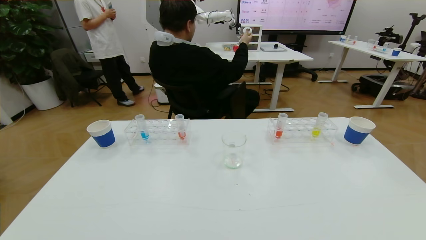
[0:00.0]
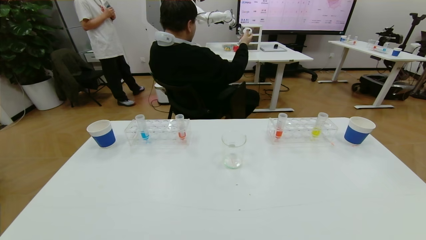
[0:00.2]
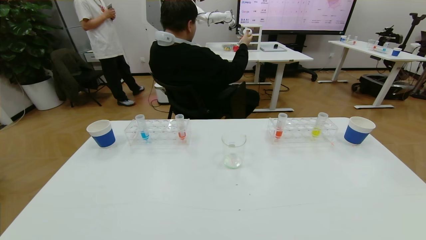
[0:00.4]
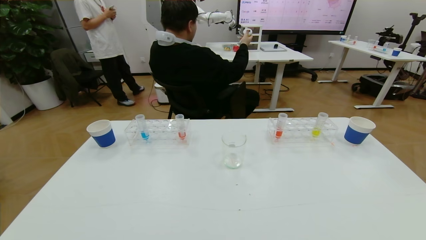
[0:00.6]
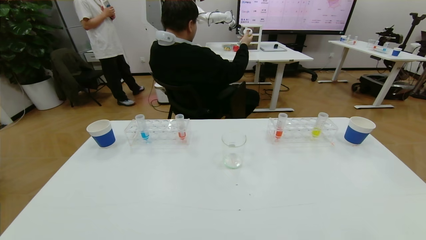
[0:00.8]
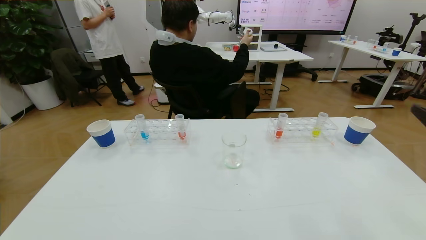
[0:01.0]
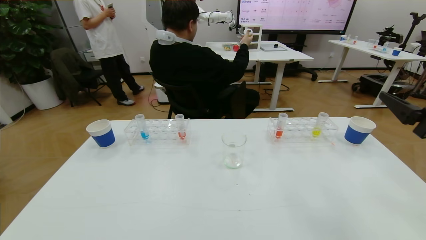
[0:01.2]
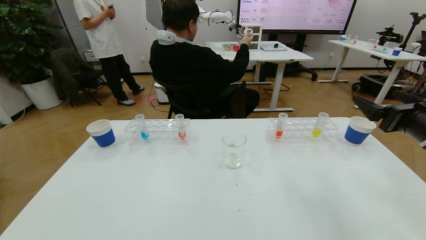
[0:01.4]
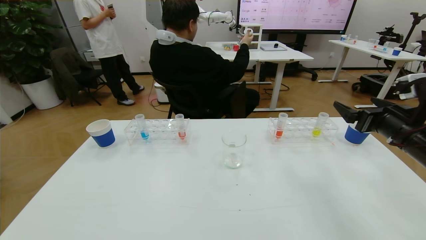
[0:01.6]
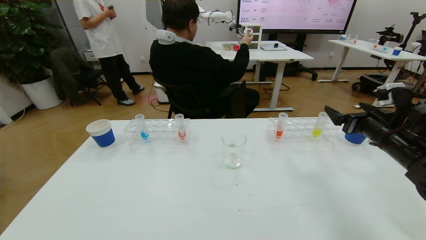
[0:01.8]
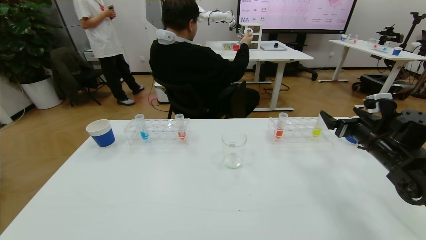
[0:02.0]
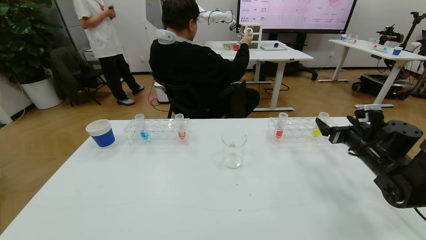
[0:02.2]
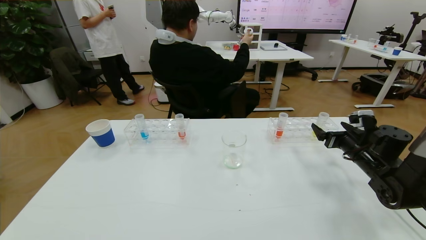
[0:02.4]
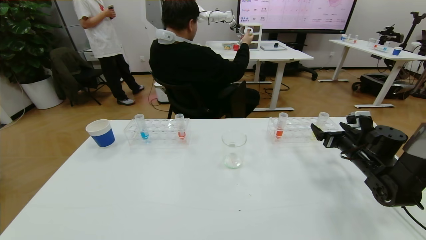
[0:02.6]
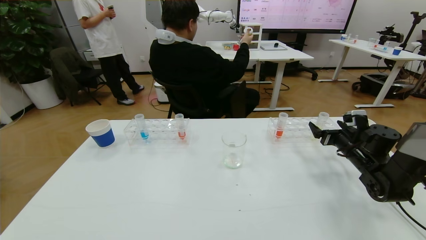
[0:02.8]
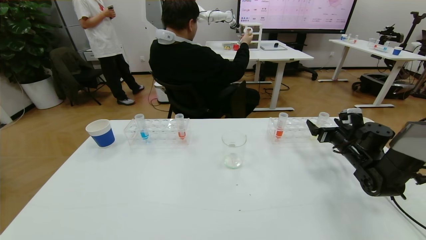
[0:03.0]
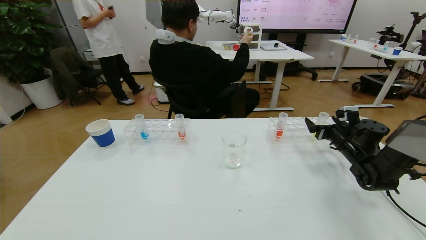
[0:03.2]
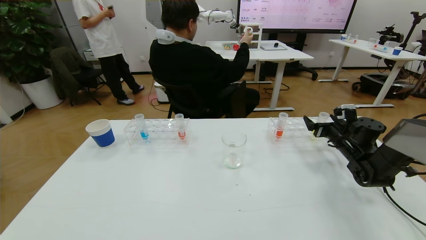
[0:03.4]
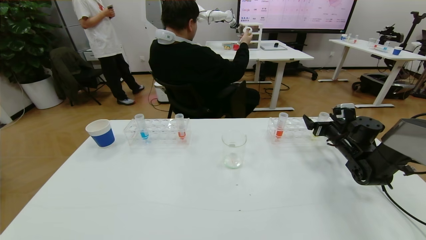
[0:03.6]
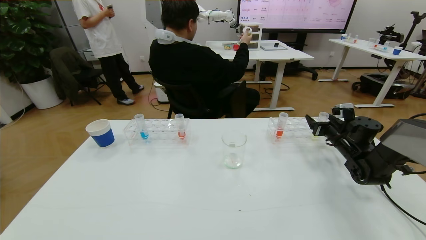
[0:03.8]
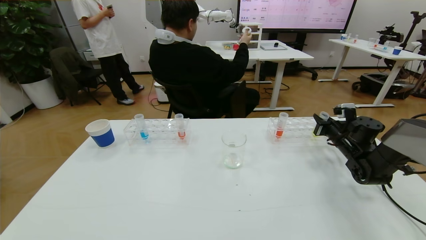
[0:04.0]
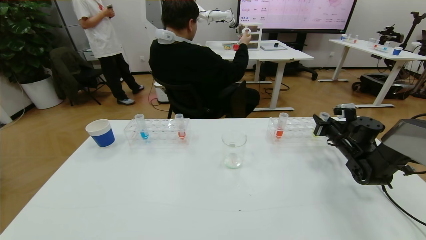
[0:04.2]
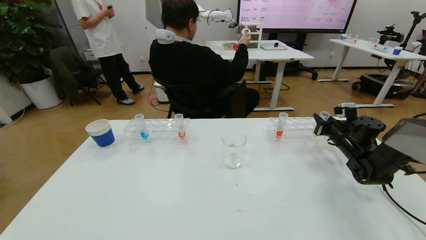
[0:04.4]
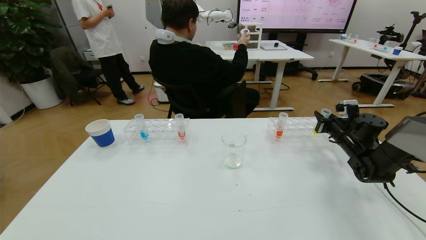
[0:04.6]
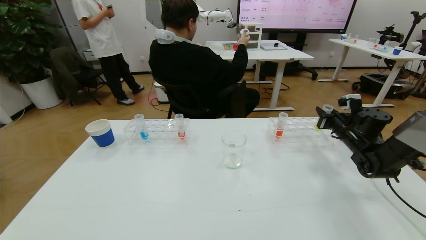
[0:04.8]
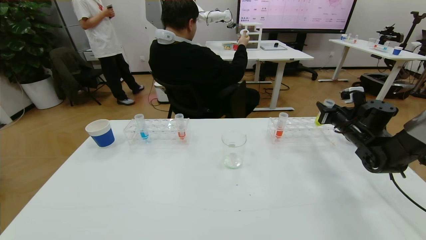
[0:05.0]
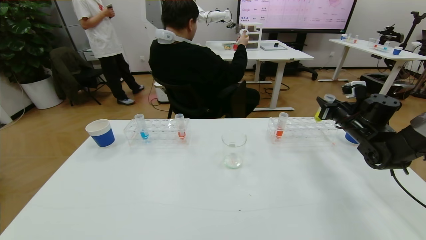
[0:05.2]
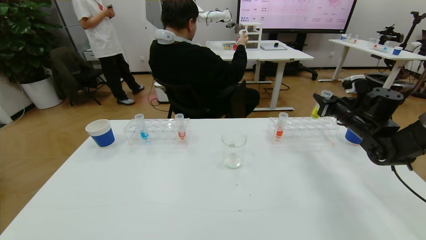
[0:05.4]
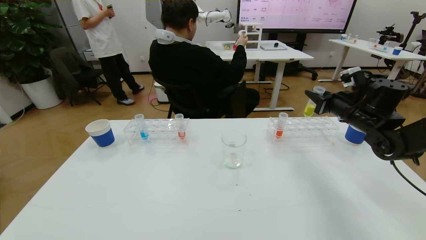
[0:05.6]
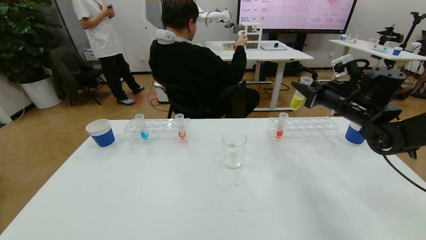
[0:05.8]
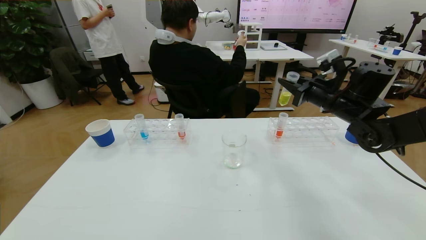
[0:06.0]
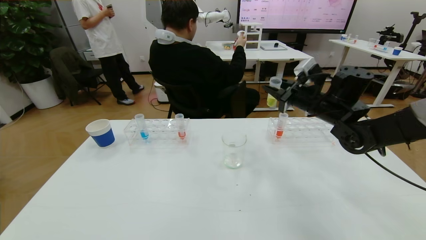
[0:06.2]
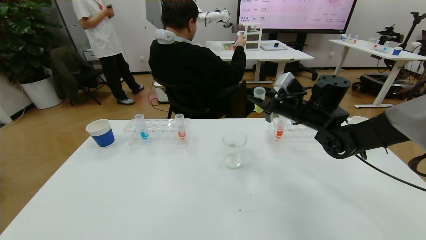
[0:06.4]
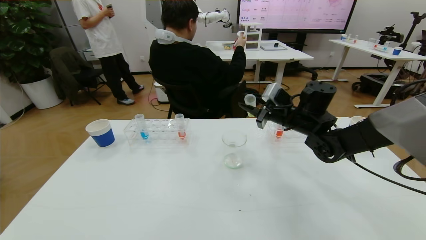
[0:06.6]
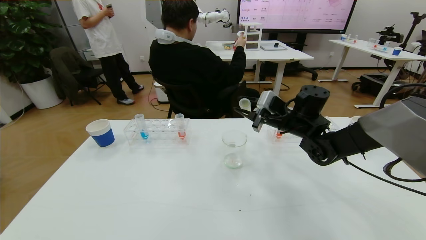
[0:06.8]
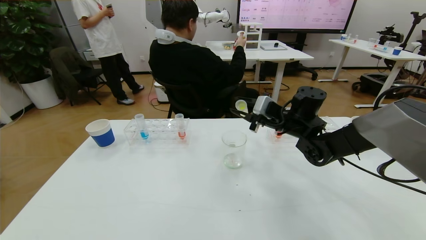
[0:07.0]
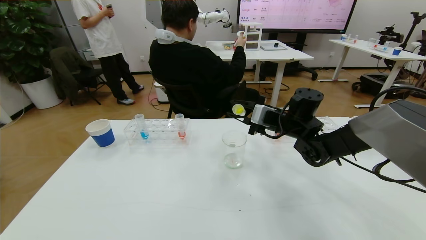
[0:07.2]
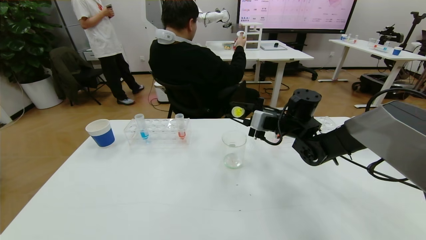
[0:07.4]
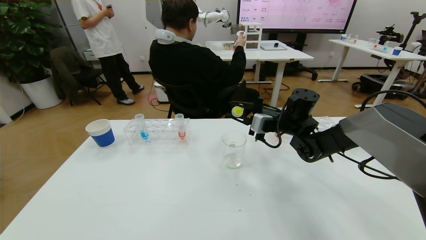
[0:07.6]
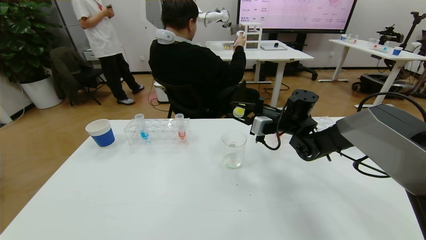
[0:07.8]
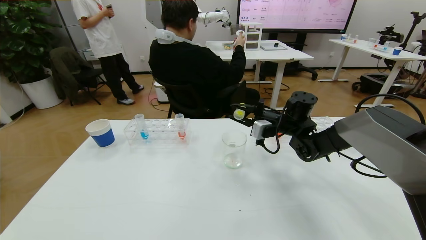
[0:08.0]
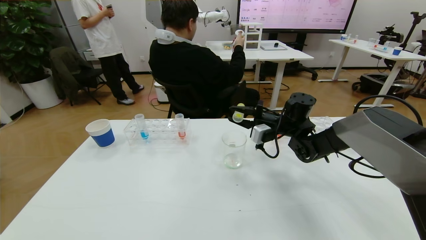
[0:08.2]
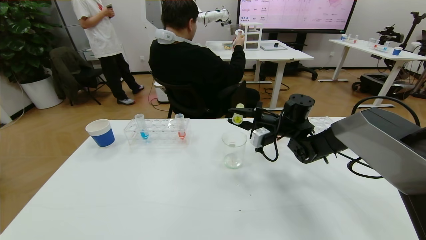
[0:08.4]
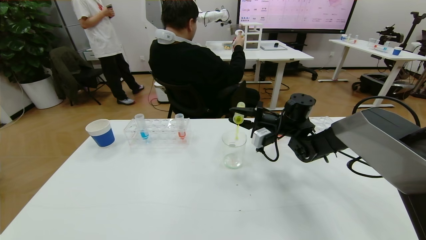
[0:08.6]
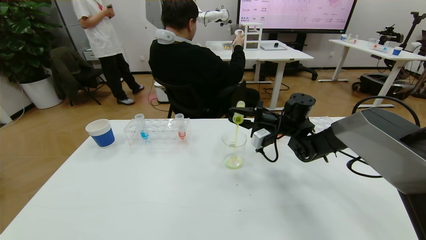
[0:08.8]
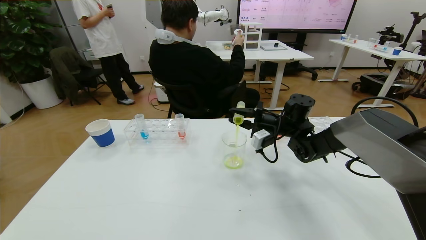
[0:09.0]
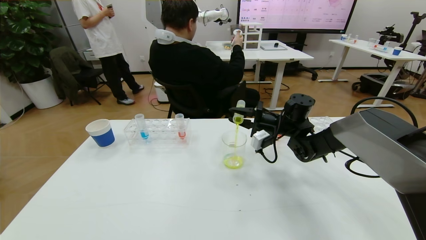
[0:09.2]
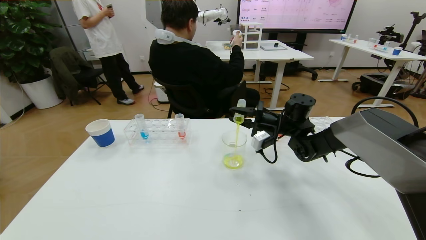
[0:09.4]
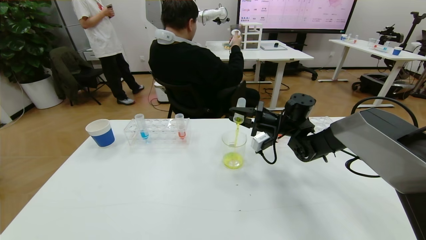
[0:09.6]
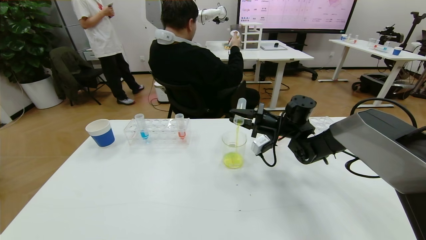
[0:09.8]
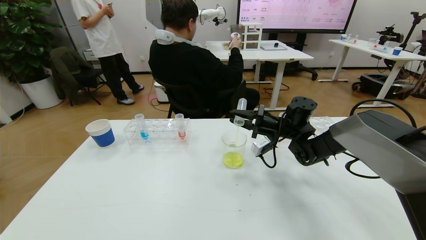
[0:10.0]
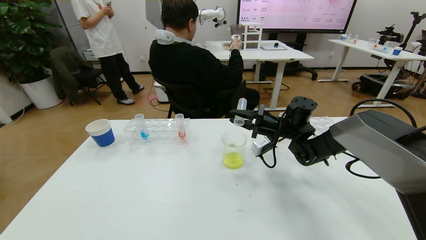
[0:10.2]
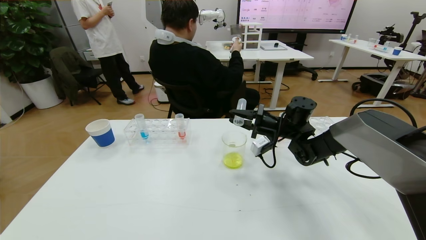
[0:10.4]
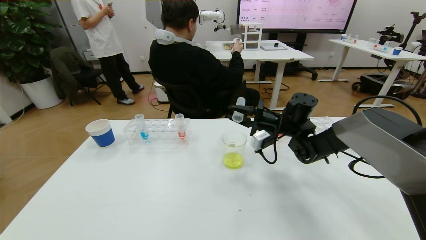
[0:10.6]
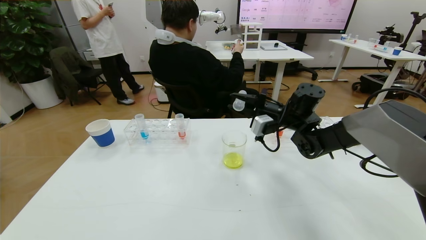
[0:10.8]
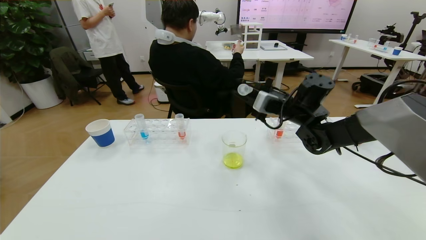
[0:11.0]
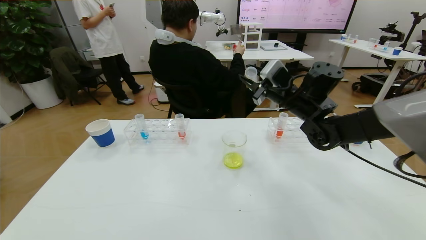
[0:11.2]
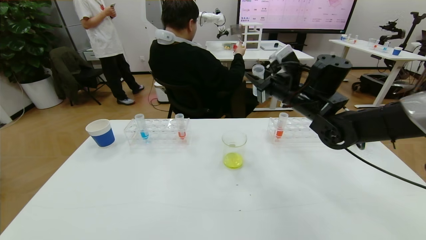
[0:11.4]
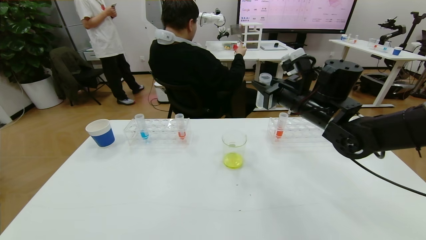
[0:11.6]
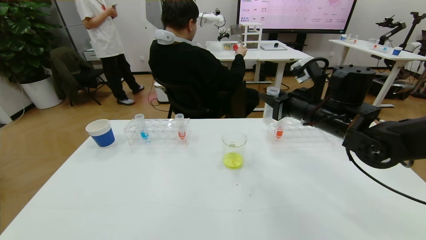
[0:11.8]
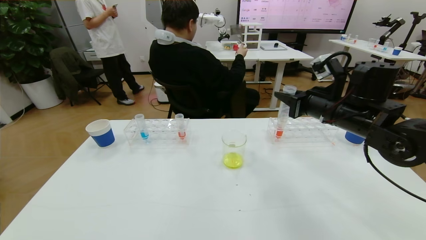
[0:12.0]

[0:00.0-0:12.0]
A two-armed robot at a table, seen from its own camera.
Task of the whole recording: pick up the test tube with yellow pigment and the test tube with blue pigment by grippers and pour them into the beaker.
0:00.0 to 0:01.6: The right gripper goes approximately 30 cm forward.
0:01.6 to 0:03.0: The right gripper travels downward and forward by approximately 15 cm.
0:03.0 to 0:04.4: The right gripper closes up.
0:04.4 to 0:06.0: The right gripper goes approximately 20 cm upward and to the left.
0:06.0 to 0:07.6: The right gripper heads to the left and downward, covering approximately 10 cm.
0:09.0 to 0:10.4: The grippers move only a little.
0:10.4 to 0:12.0: The right gripper shifts roughly 15 cm backward, upward and to the right.

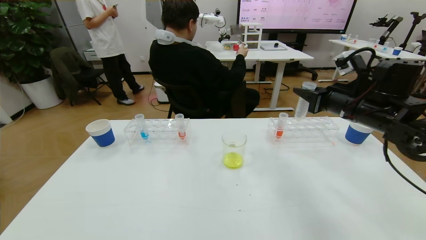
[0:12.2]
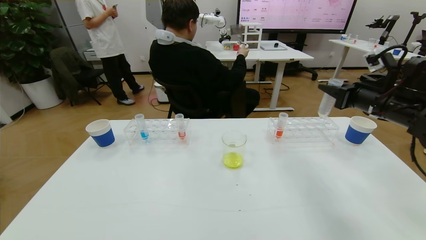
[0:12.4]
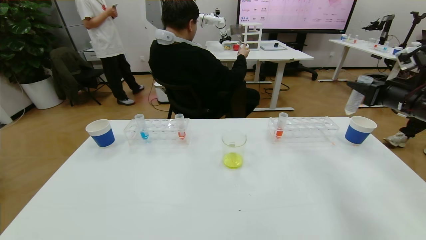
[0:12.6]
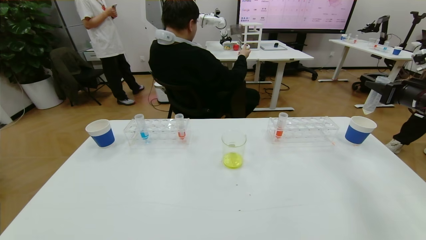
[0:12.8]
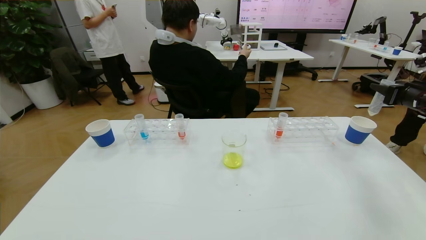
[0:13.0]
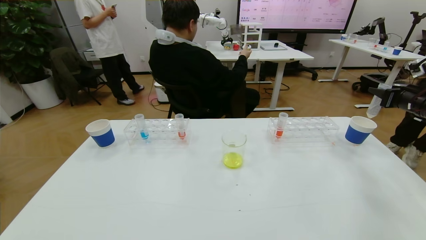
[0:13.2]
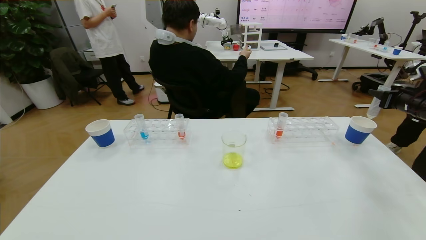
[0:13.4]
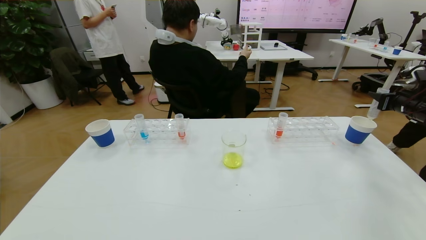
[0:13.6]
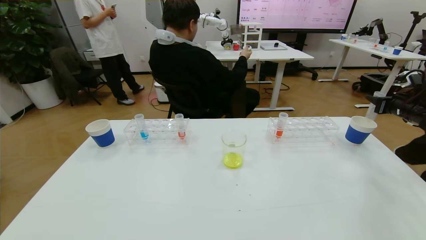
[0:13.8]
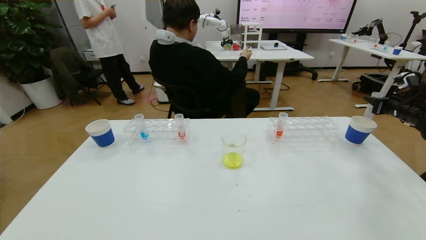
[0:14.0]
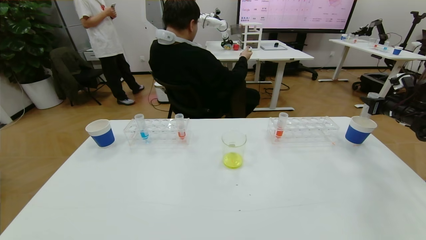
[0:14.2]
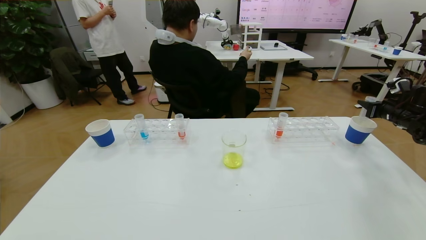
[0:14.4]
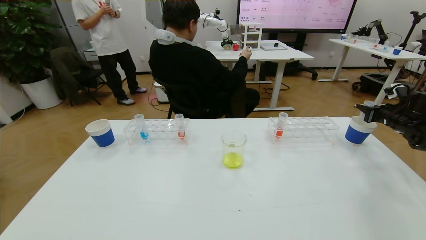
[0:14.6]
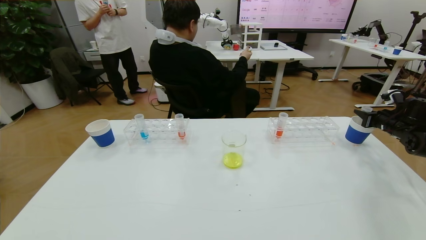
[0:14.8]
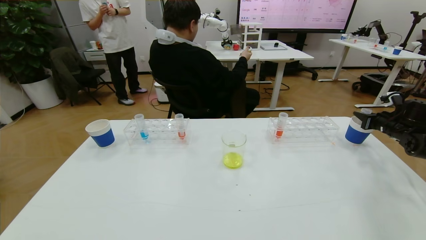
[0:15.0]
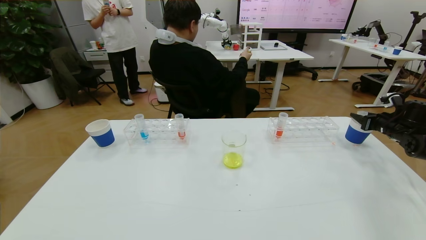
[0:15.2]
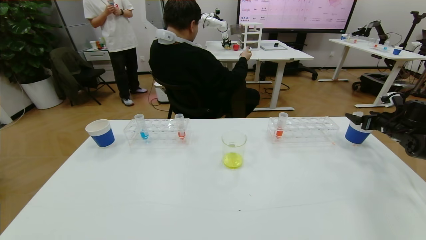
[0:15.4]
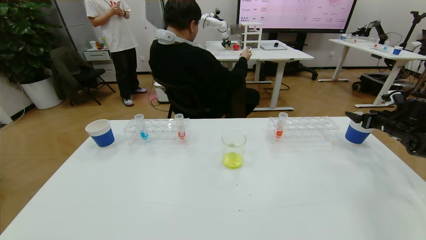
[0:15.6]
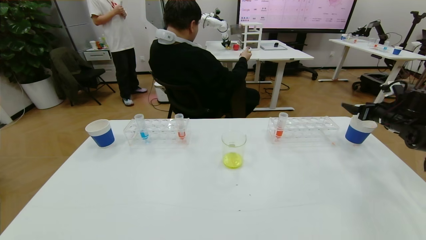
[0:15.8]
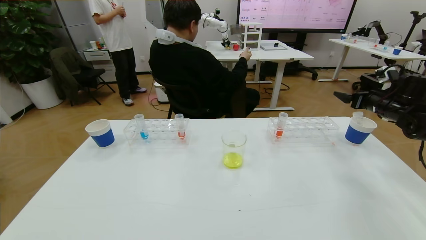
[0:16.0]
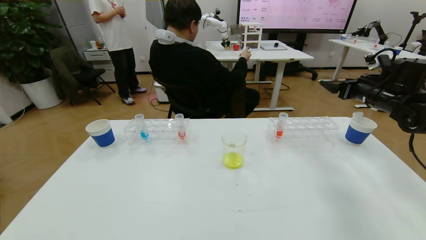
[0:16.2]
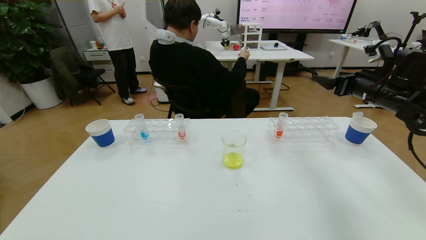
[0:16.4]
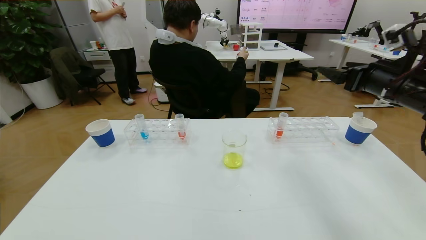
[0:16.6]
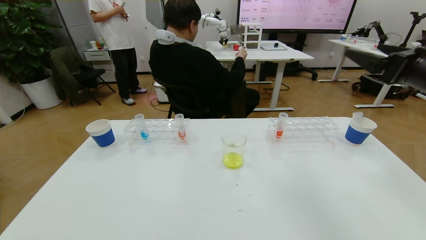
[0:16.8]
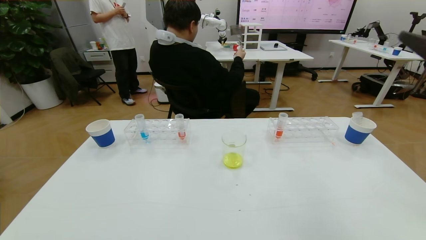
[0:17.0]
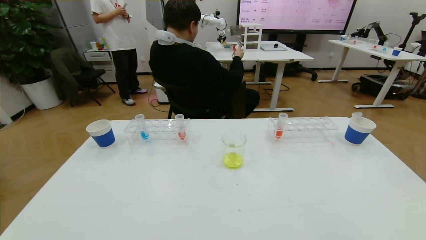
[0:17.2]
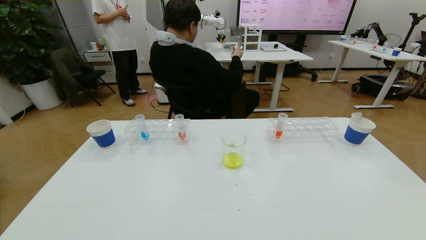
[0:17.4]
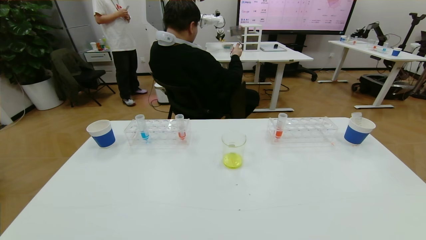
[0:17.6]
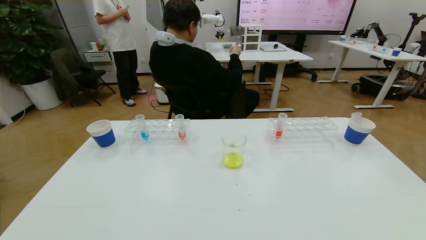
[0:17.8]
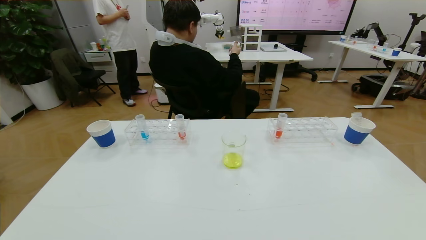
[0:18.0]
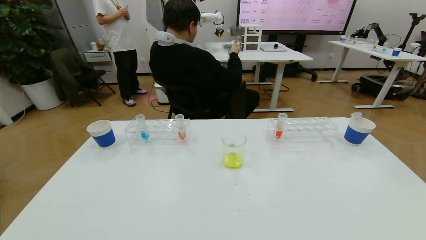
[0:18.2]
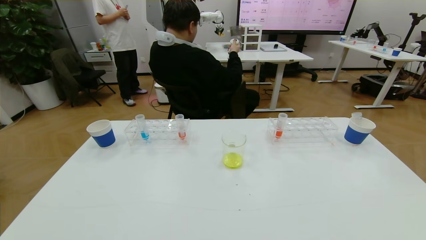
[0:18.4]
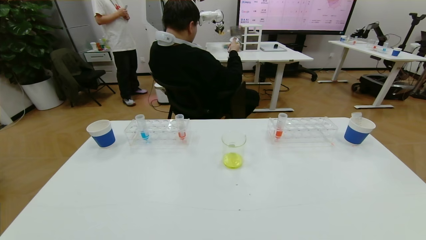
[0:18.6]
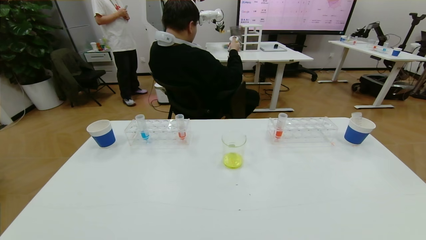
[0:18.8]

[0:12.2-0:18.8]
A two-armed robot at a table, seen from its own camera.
Task of the whole recording: pick up the test tube with yellow pigment and the test tube with blue pigment by grippers and pour them into the beaker.
0:12.2 to 0:13.8: The right gripper goes roughly 25 cm to the right.
0:13.8 to 0:15.4: The right gripper goes roughly 5 cm downward, and opens.
0:15.4 to 0:17.2: The right gripper heads backward, upward and to the left, covering about 50 cm.
0:17.2 to 0:18.8: The right gripper moves downward and backward, about 25 cm.
